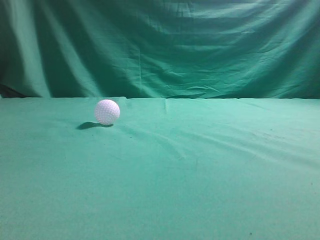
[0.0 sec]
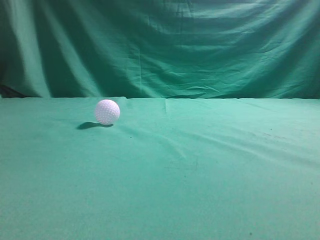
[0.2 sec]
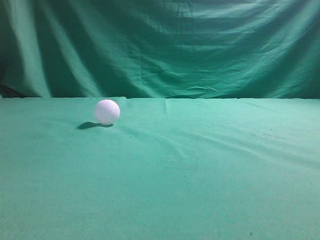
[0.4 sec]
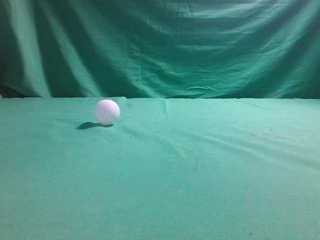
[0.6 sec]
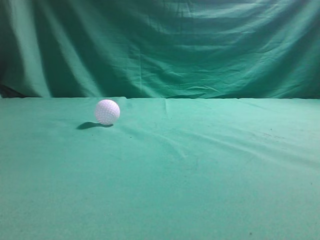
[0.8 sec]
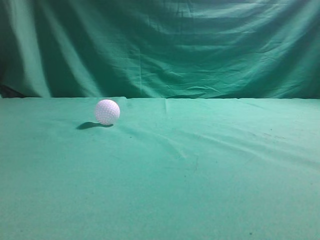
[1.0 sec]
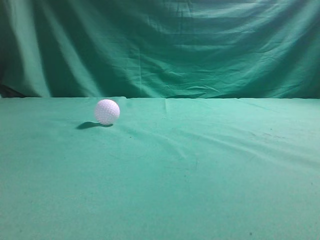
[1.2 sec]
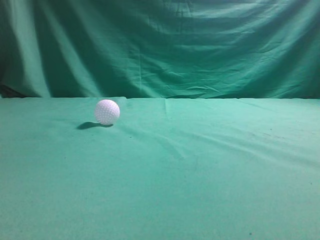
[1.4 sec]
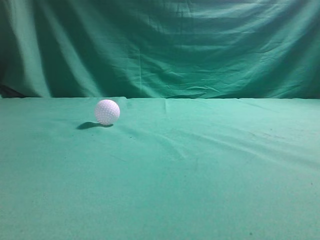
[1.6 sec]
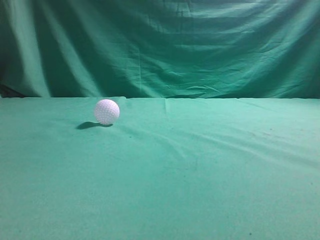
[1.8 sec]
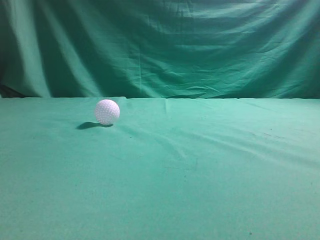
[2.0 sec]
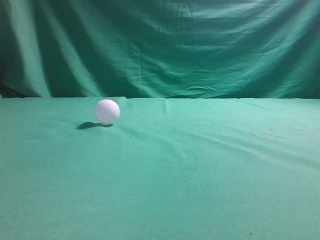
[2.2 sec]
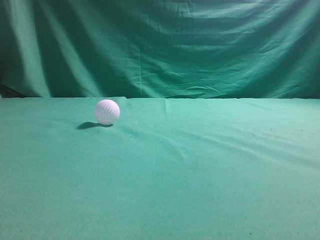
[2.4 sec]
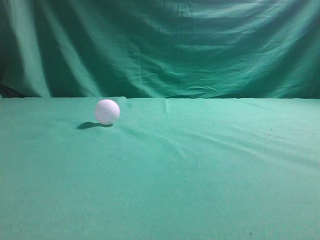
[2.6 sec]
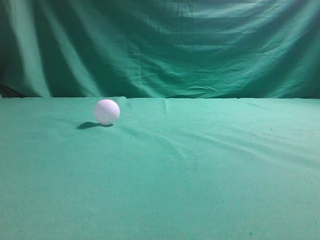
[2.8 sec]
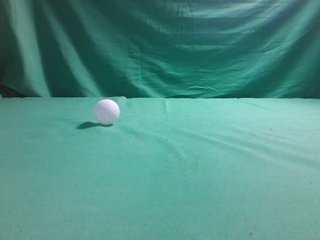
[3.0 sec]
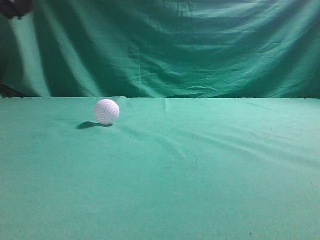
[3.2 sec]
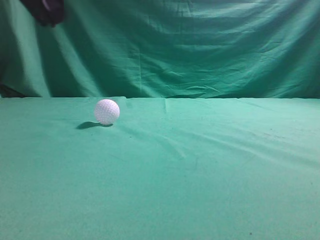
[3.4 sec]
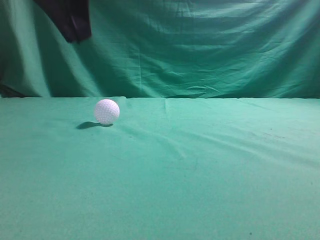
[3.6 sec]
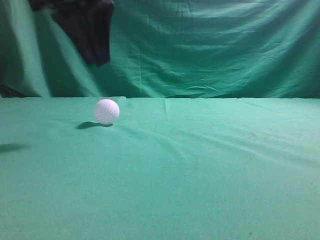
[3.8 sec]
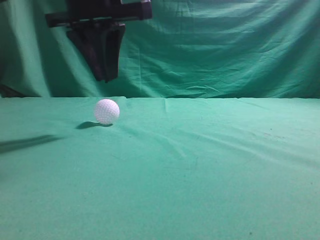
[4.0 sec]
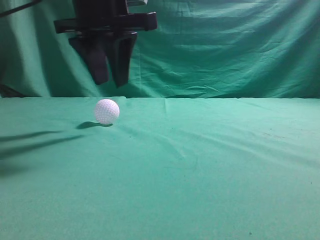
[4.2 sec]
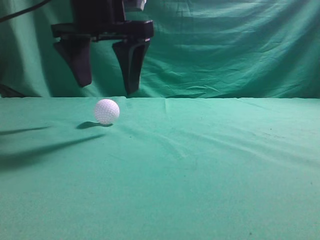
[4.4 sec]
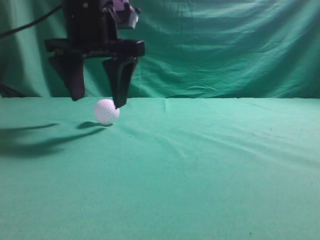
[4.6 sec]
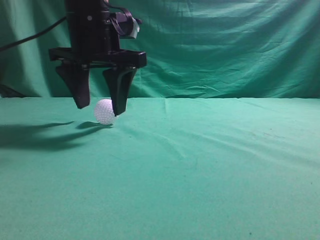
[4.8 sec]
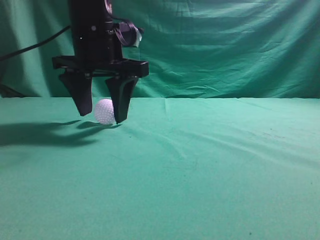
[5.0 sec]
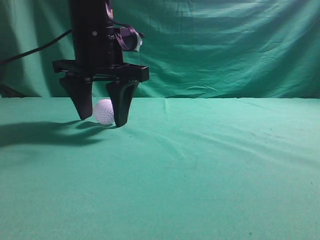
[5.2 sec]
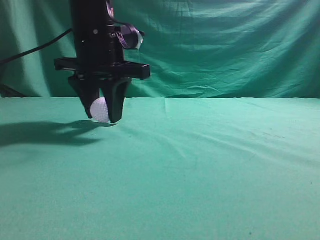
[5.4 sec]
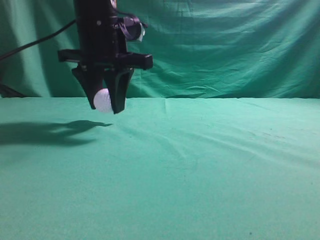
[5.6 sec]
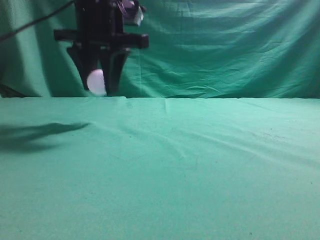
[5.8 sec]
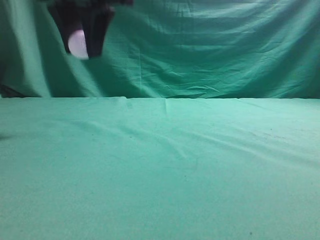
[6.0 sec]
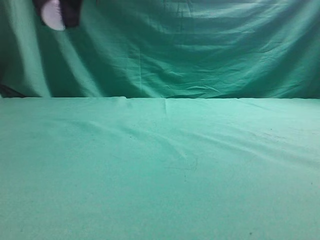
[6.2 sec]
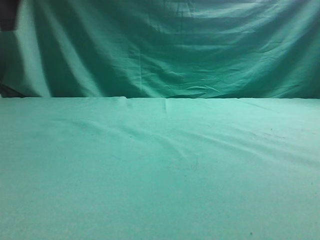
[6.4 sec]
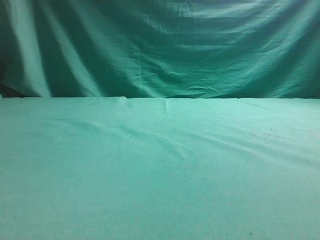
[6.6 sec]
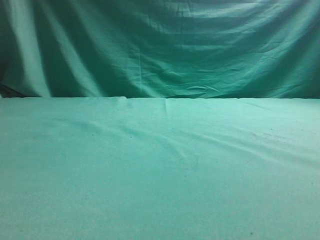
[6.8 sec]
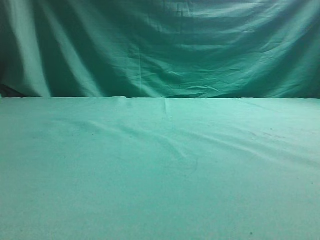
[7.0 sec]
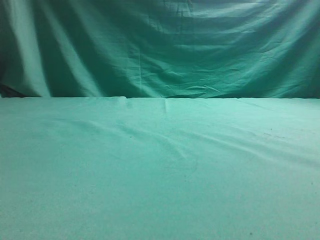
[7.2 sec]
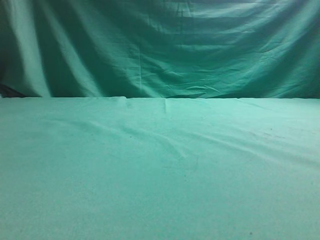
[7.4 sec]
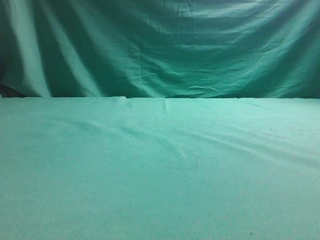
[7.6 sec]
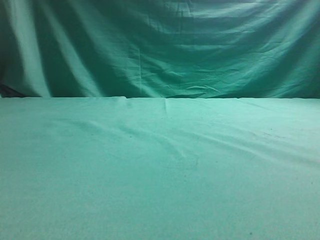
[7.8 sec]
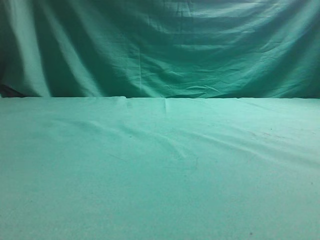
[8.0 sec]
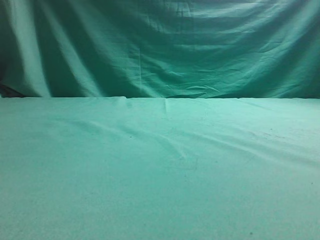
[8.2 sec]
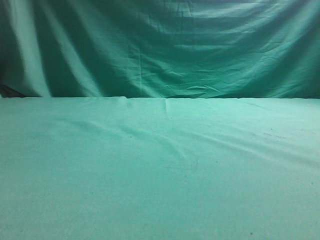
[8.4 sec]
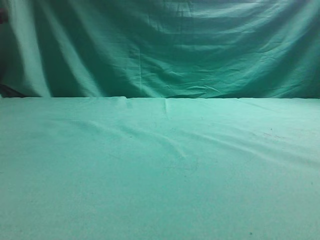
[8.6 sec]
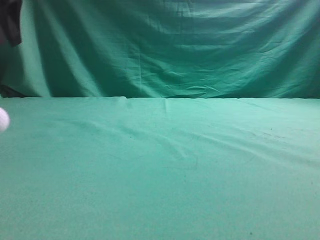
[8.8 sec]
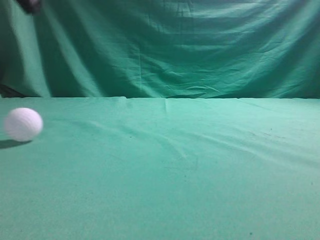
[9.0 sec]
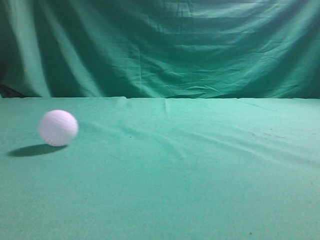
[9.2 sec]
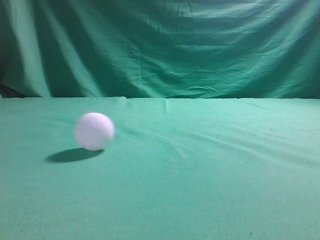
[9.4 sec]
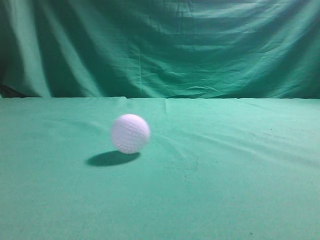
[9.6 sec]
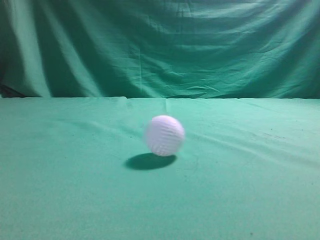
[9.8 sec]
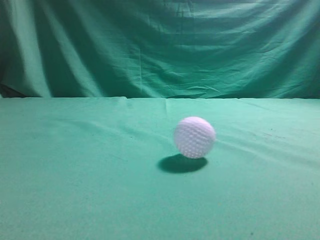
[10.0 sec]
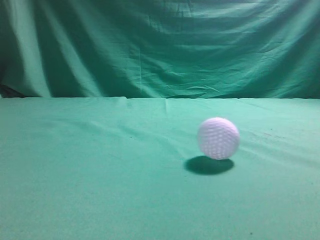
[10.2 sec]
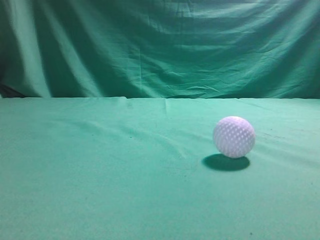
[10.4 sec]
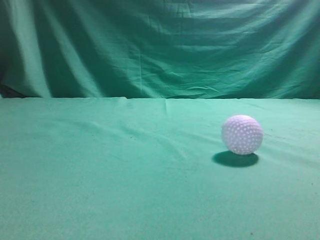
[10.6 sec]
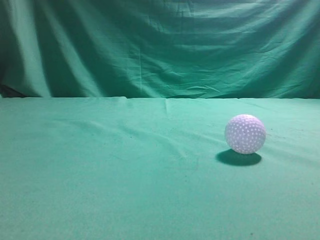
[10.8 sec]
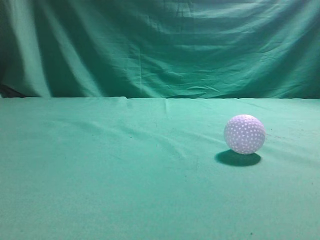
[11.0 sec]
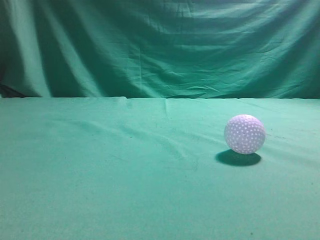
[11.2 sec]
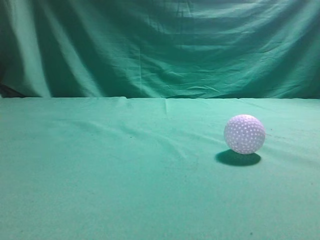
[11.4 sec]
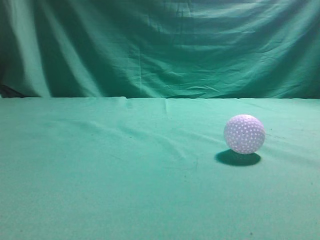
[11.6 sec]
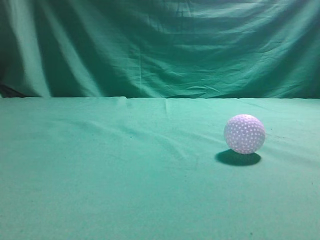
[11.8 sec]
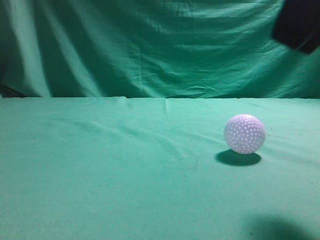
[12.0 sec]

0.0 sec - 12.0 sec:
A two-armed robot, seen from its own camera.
Task of the whole recording: pick up the ball and place it on the plate, then pick up the ball from the plate and put it in the center of the table.
Step, 0.0 sec - 5.4 sec: Grab the spherical object with your left arm.
Step, 5.8 sec - 8.2 sec: Place the sphere on the white object.
3.0 sec - 4.4 sec: The left gripper shifts approximately 20 cm forward and to the right, and opens.
4.4 sec - 6.0 sec: The left gripper moves roughly 5 cm, and closes up.
6.0 sec - 7.6 sec: The left gripper travels to the left by about 25 cm.
7.6 sec - 9.0 sec: The left gripper is displaced to the right and upward by roughly 15 cm, and closes up.
9.0 sec - 10.4 sec: The left gripper travels backward by some 25 cm, while the right gripper travels upward by some 5 cm.
10.4 sec - 12.0 sec: The right gripper shifts approximately 15 cm to the left and forward, and opens up.

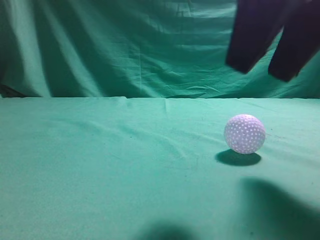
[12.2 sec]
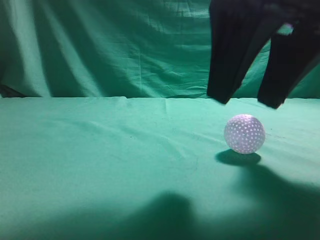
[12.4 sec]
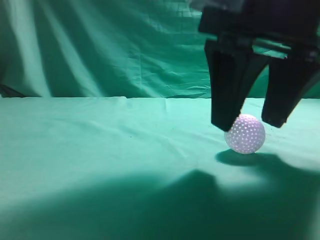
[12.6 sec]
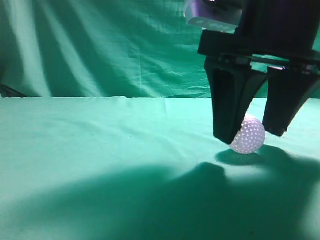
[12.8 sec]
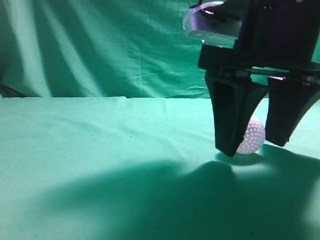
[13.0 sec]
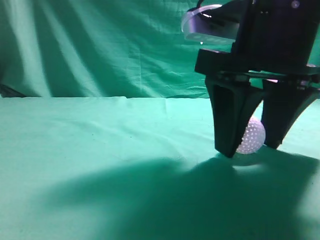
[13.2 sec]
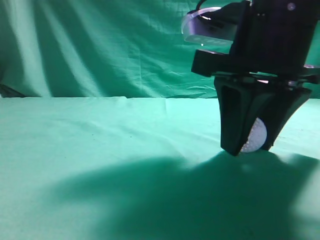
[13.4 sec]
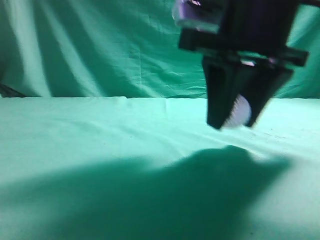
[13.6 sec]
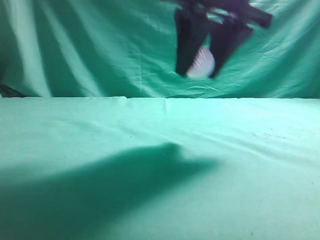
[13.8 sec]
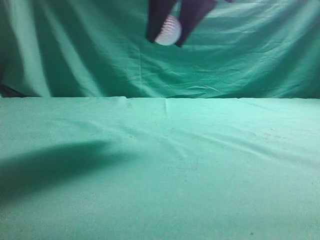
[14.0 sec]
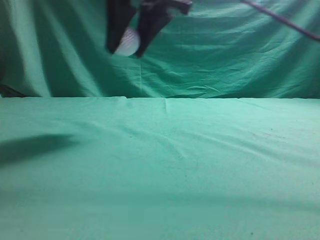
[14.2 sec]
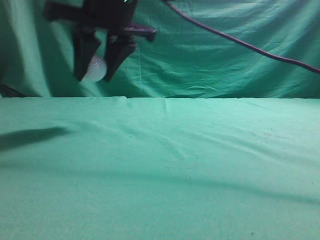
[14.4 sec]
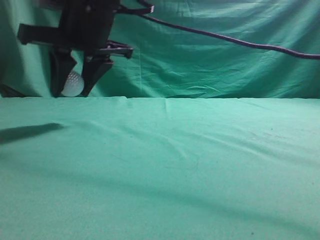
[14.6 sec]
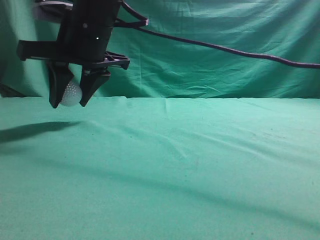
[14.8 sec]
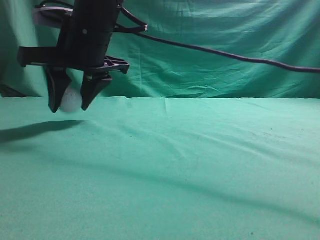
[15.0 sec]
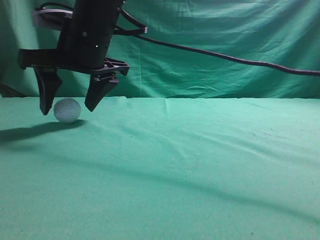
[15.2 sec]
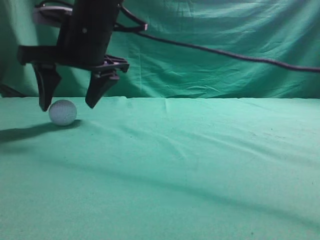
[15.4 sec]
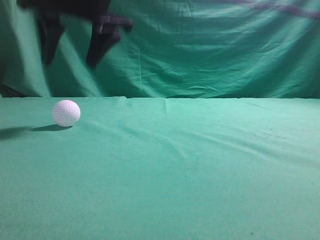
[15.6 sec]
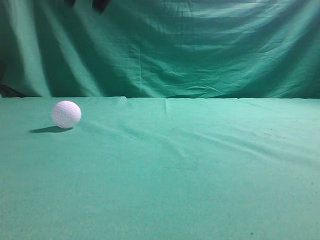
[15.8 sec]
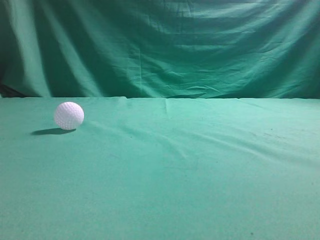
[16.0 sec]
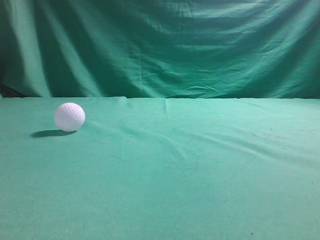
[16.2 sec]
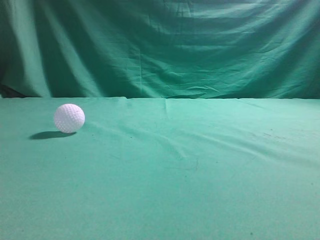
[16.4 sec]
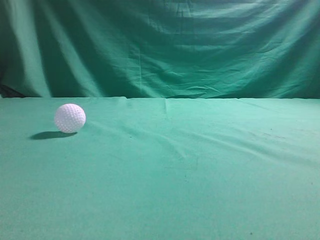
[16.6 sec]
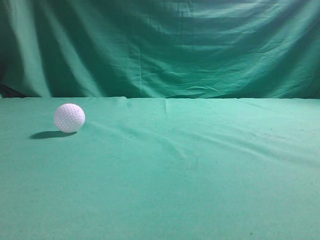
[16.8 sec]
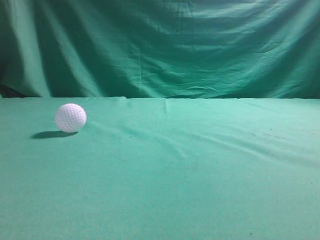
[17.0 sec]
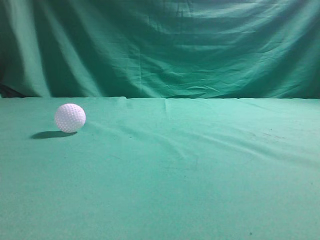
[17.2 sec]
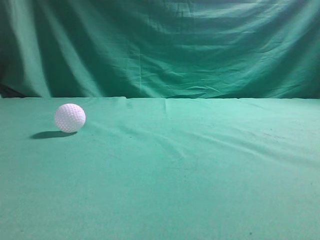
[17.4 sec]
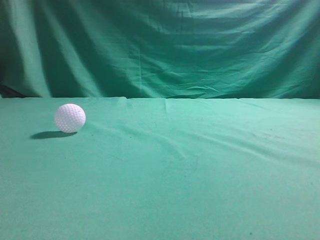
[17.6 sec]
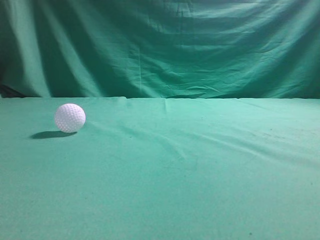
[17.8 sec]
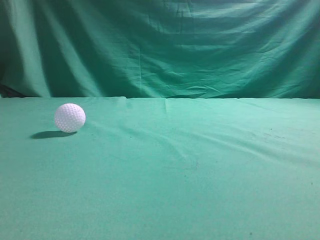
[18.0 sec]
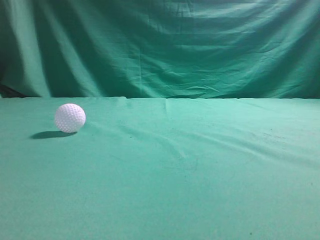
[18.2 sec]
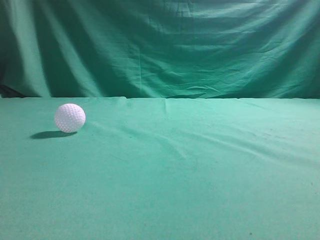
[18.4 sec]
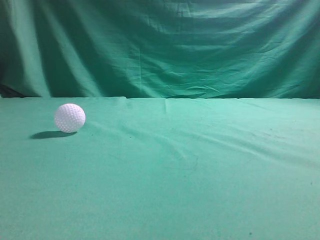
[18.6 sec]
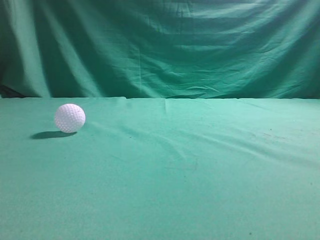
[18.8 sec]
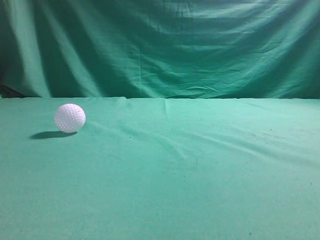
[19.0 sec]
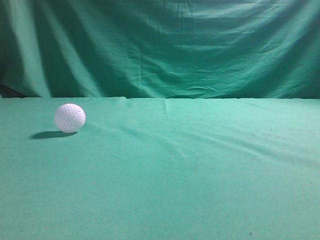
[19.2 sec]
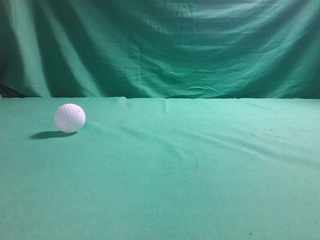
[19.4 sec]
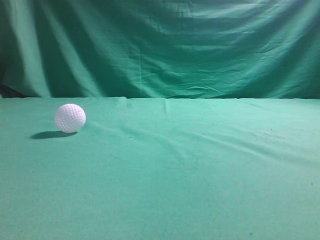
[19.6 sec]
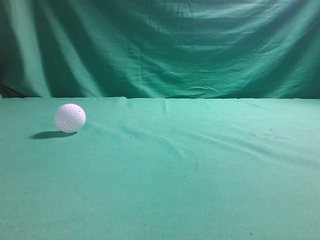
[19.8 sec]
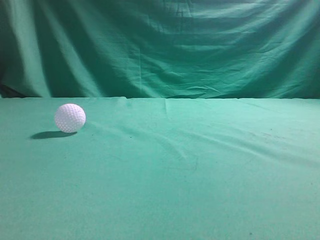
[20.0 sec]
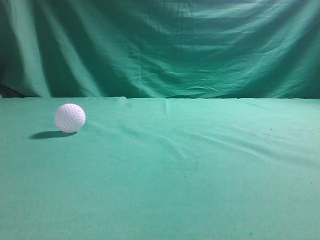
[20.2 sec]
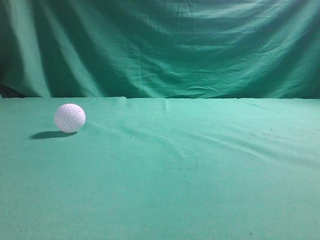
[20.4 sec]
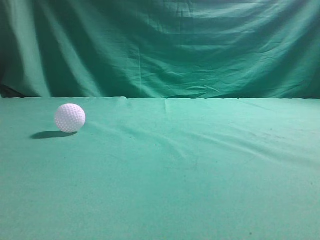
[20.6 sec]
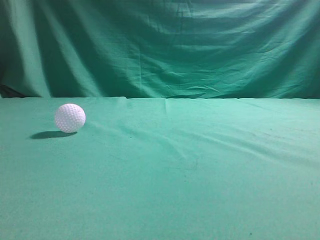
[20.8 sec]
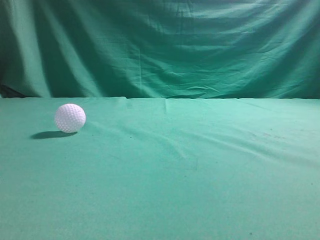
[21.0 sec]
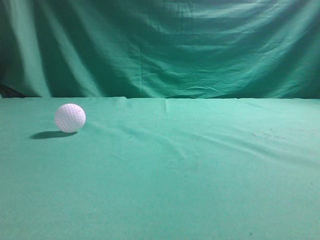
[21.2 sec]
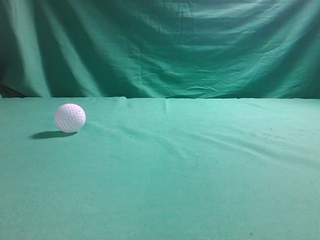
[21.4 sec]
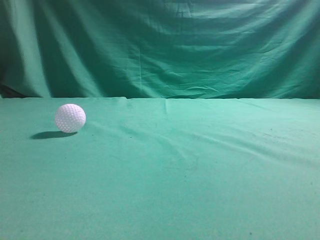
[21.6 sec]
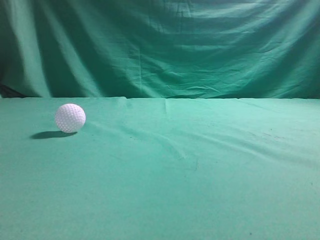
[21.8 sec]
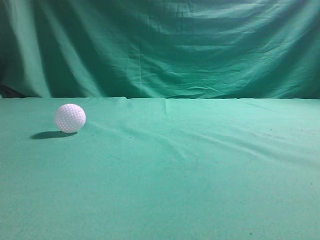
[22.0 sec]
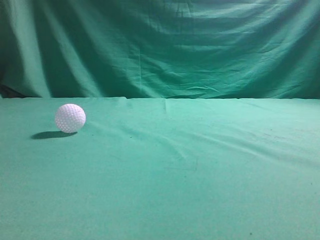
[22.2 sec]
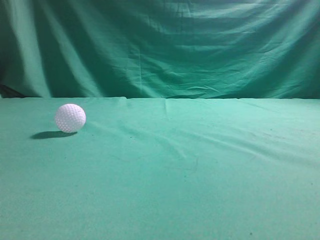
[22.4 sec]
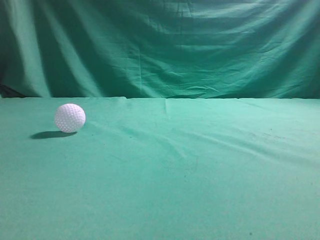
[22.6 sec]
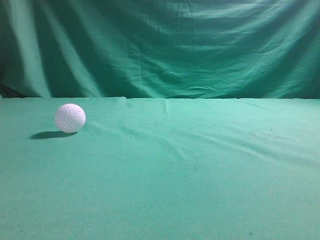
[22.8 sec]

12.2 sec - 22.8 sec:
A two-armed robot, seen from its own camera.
Task of the whole recording: pick up the ball and place it on the plate, then pick up the ball from the plate and put it in the center of the table.
Step, 13.8 sec - 15.4 sec: Put the picked-up object on the table.
12.2 sec - 13.8 sec: The right gripper travels forward and to the left by some 10 cm.
13.8 sec - 15.2 sec: The right gripper moves to the left and forward, roughly 20 cm, and opens its fingers.
15.2 sec - 16.8 sec: The right gripper is displaced upward, to the right and backward by some 40 cm, and closes up.
19.8 sec - 21.2 sec: Neither gripper changes place.
